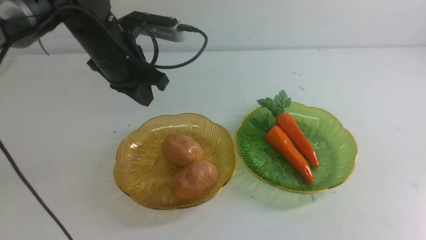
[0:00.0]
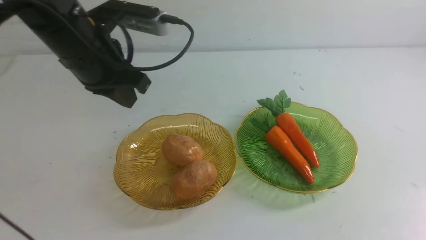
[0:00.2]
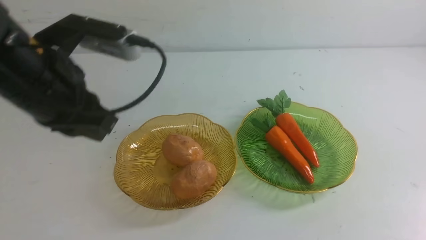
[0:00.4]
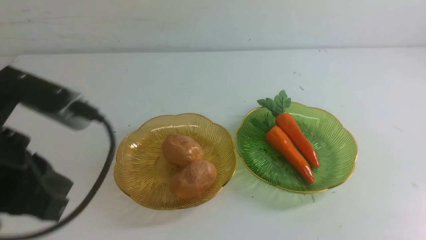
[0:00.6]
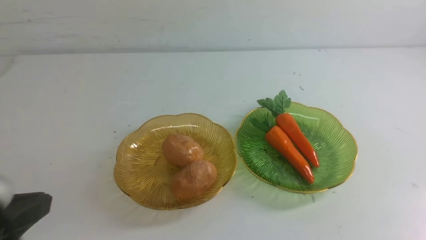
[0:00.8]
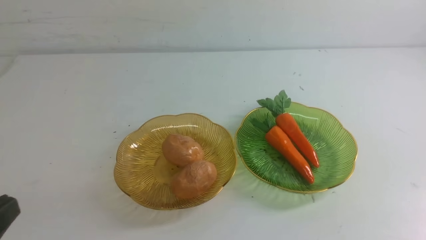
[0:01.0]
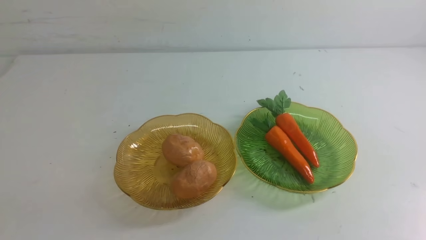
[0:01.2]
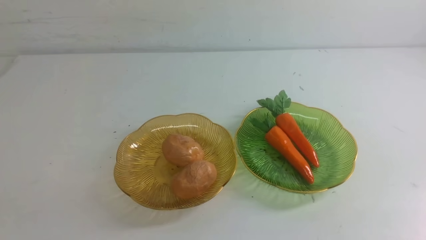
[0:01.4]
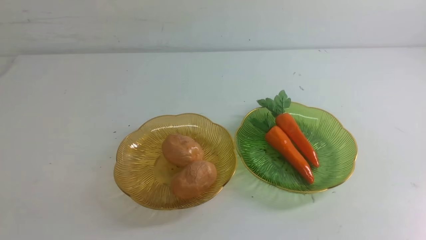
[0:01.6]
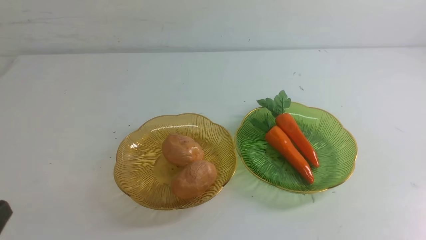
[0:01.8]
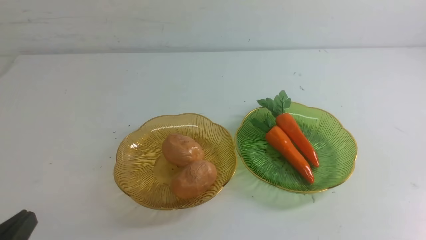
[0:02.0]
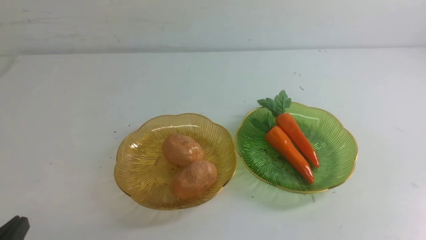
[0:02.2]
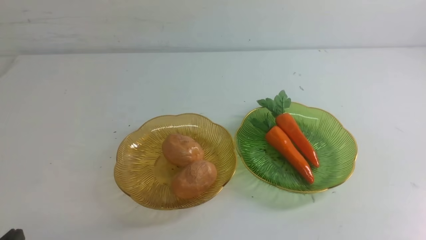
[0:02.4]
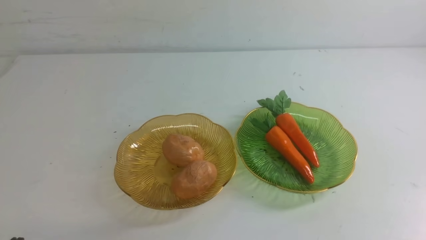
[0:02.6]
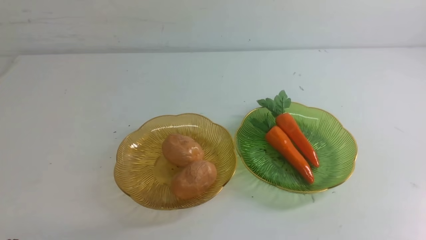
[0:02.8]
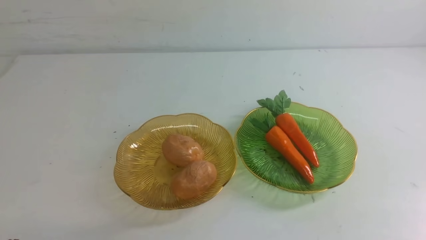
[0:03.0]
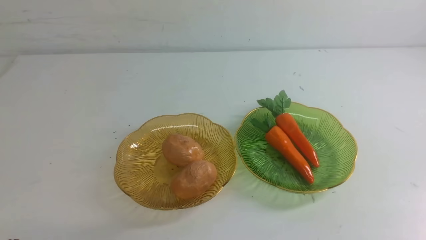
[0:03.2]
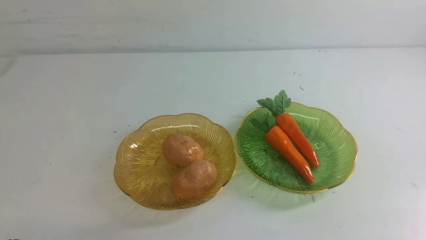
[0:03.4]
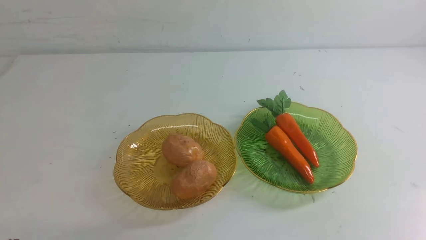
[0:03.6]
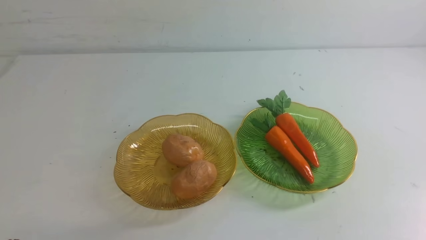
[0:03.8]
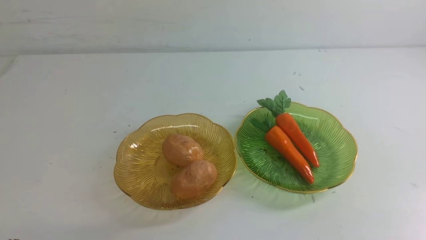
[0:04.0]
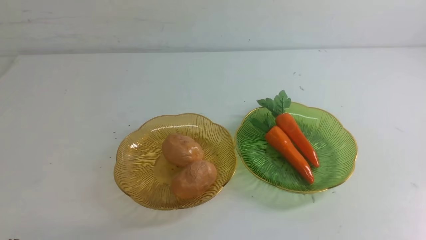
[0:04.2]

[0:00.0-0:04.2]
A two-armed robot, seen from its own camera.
0:00.0 to 0:01.4: The left gripper travels backward by about 20 cm.
0:02.8 to 0:04.2: The two grippers keep their place.
